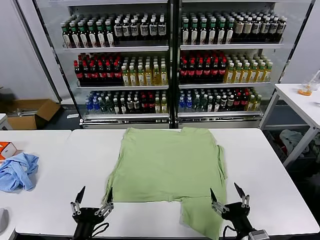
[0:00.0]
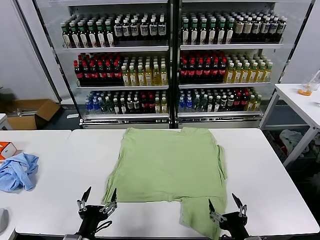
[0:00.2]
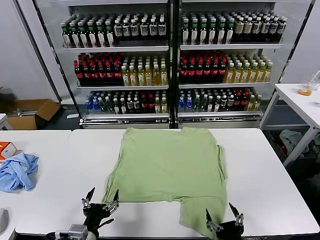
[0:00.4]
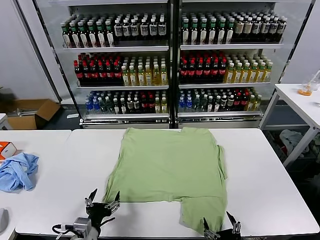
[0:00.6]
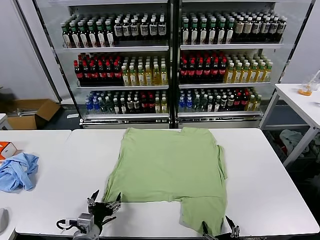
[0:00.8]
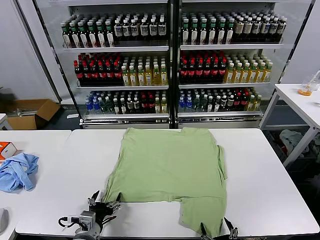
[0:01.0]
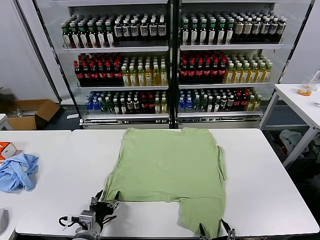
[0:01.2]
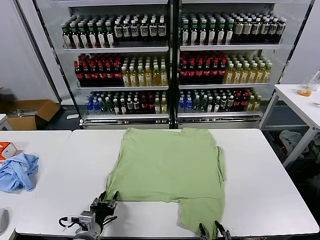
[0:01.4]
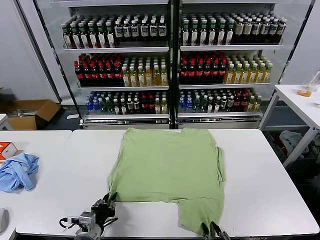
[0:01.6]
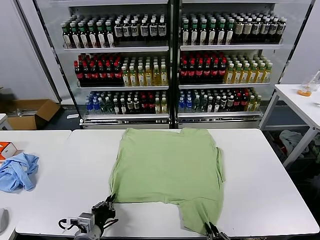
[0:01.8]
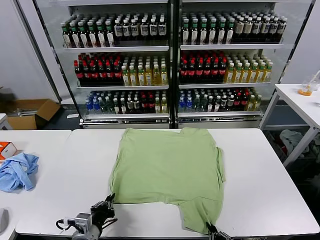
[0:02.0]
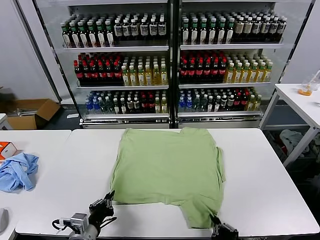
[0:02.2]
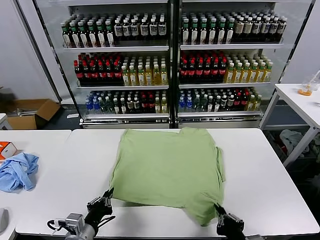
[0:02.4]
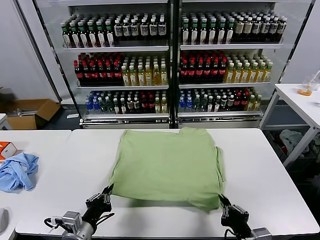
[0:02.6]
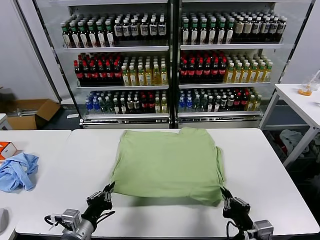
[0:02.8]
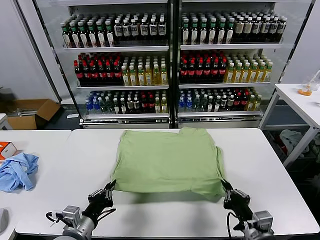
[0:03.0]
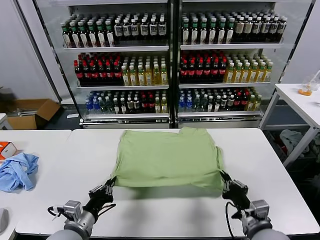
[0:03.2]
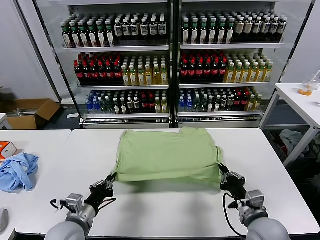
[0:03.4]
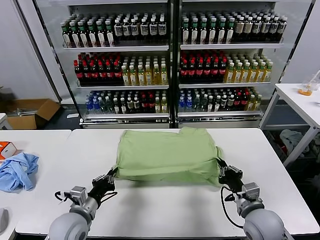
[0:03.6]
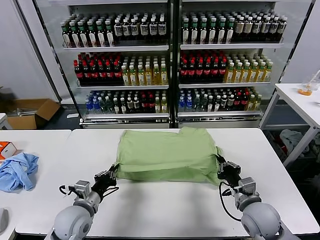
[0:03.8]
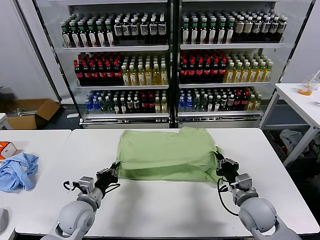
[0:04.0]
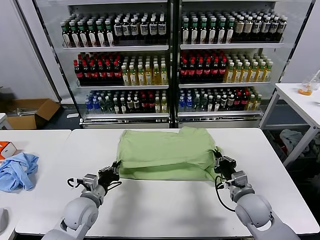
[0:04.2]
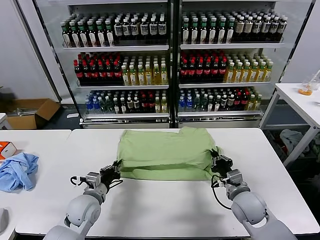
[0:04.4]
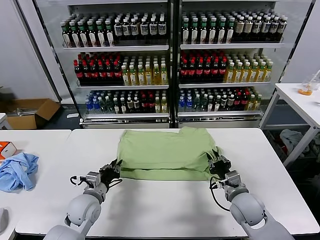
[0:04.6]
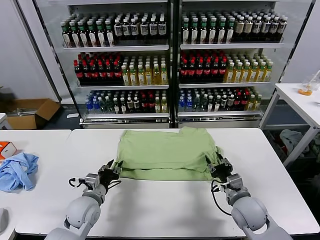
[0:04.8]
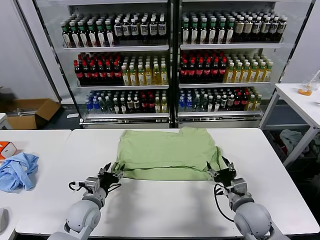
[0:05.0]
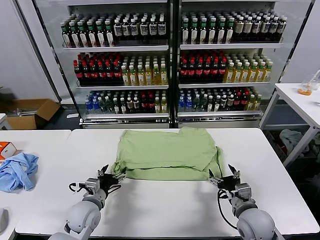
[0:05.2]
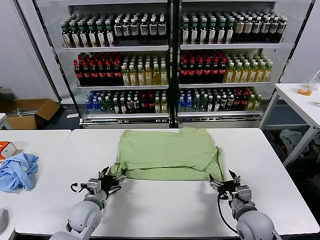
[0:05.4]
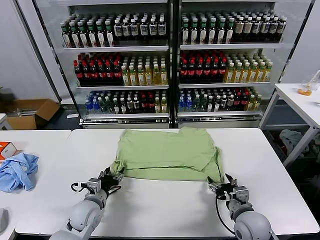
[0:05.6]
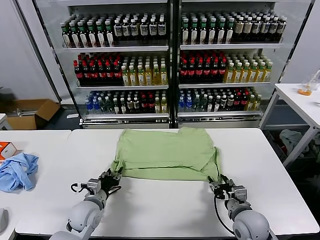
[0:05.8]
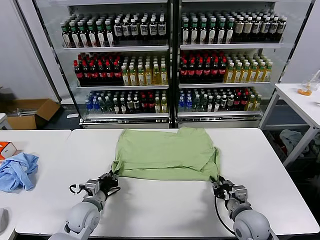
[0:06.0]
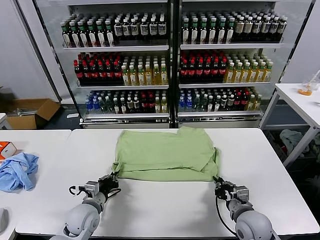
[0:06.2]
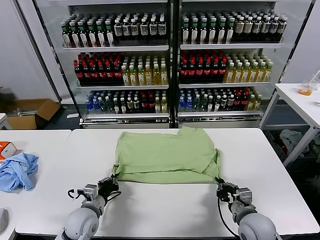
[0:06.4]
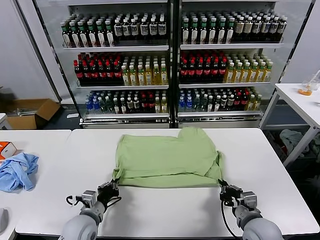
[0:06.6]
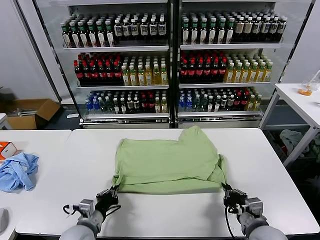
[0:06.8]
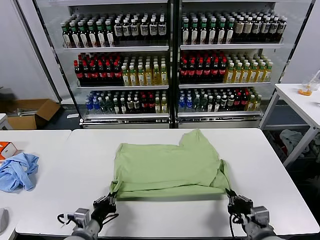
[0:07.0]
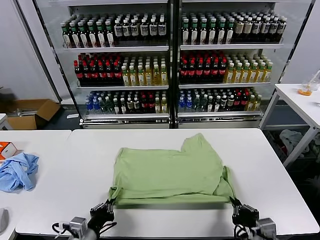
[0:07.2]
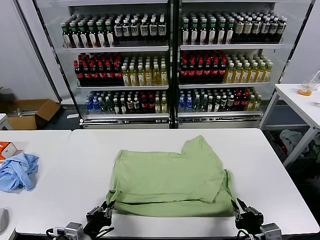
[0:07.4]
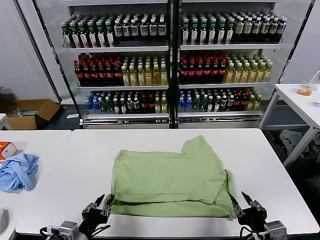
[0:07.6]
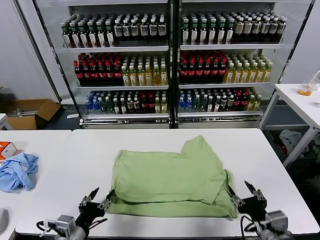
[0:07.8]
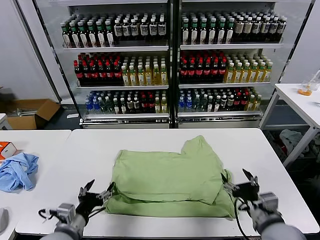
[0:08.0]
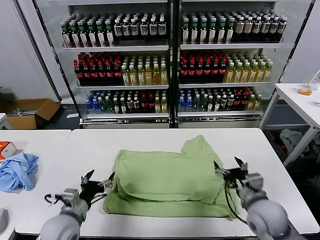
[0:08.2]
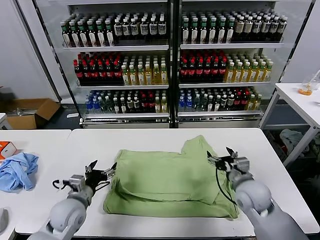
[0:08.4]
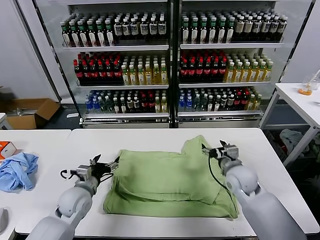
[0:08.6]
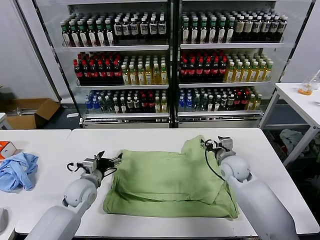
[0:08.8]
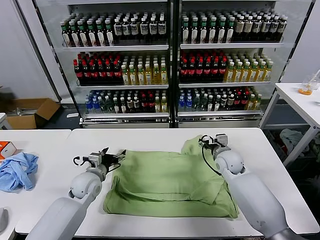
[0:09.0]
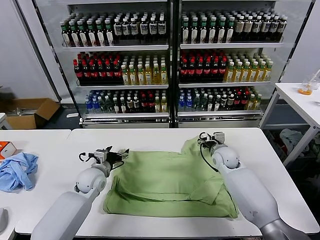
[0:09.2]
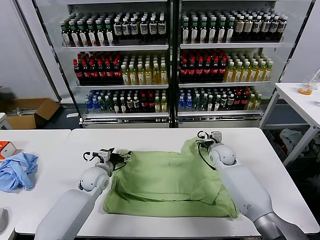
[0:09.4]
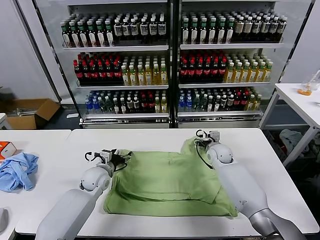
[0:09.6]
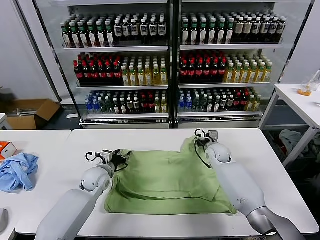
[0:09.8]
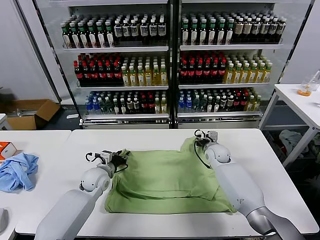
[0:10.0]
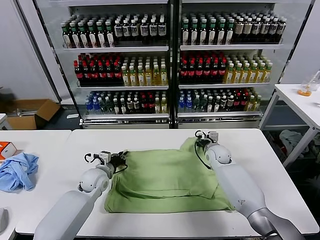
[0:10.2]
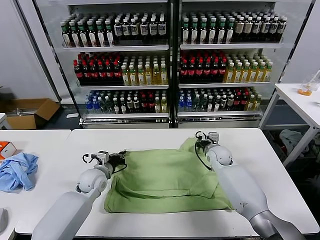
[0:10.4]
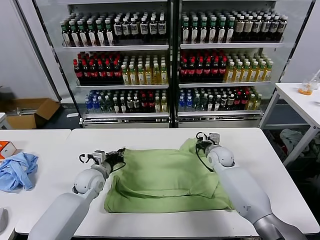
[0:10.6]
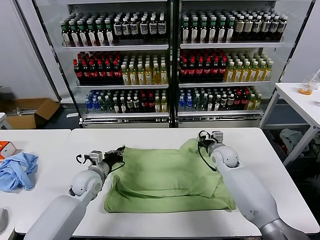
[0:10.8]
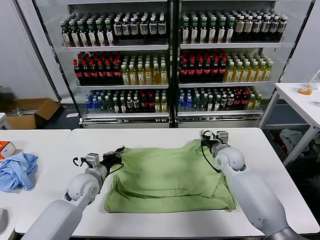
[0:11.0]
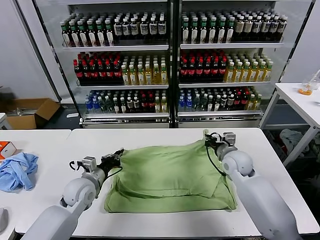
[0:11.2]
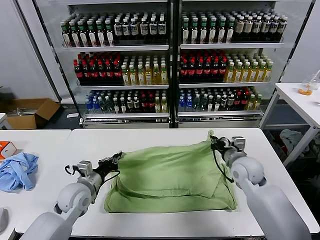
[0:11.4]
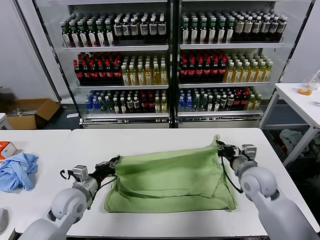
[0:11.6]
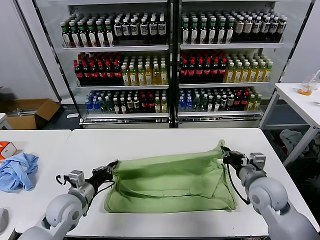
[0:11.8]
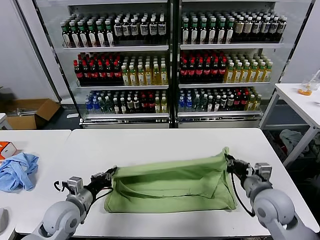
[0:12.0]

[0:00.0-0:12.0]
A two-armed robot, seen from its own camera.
Task of the whole recording: fold and organize the clothes.
Step, 0:00.0 to 0:02.0: use both grippers simultaneously to clamp the lower edge of the clothing fabric.
Step, 0:02.2 to 0:04.8: use both grippers to drag the lower edge of the fabric forward and fold it over the upper edge.
Step, 0:05.2 to 0:07.6: Drag the clothes downward with both gripper.
Step, 0:07.8 to 0:10.4: use both grippers simultaneously to clamp the upper edge of the clothing fabric.
0:01.6 to 0:03.0: The right gripper goes some 15 cm forward and to the right, while the left gripper moves upward, approximately 5 cm.
0:03.0 to 0:04.4: The grippers both shift forward by approximately 15 cm.
0:04.4 to 0:06.0: The right gripper moves backward, approximately 5 cm, and opens, then closes again. The left gripper opens and closes again.
0:06.0 to 0:07.6: Both grippers travel together backward and upward, some 15 cm.
0:07.6 to 0:09.0: The grippers both shift forward by roughly 30 cm. The right gripper opens. Meanwhile the left gripper opens.
0:09.0 to 0:10.4: The left gripper closes up. Meanwhile the right gripper shifts by about 5 cm, and closes up.
0:10.4 to 0:12.0: The left gripper shifts about 15 cm backward. Meanwhile the right gripper goes approximately 25 cm backward.

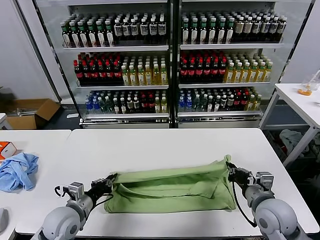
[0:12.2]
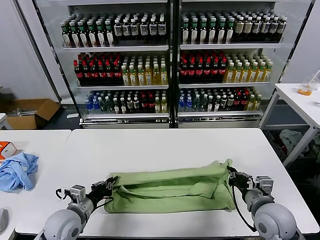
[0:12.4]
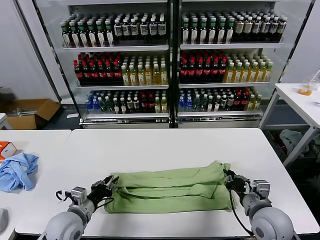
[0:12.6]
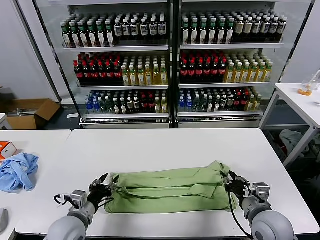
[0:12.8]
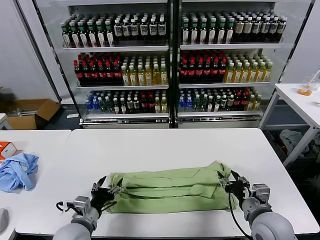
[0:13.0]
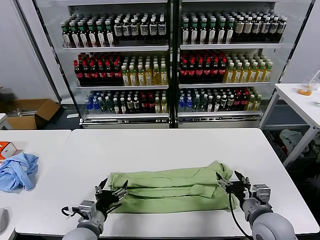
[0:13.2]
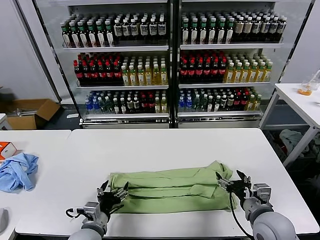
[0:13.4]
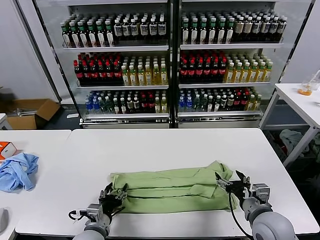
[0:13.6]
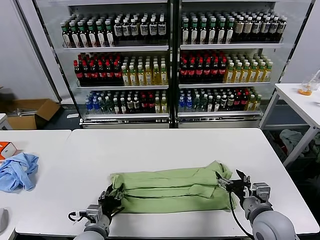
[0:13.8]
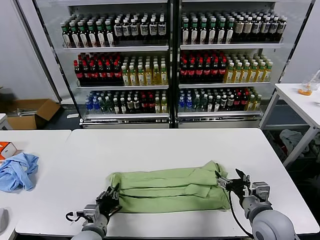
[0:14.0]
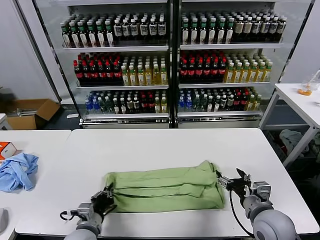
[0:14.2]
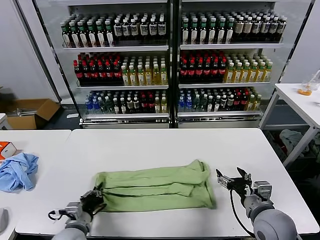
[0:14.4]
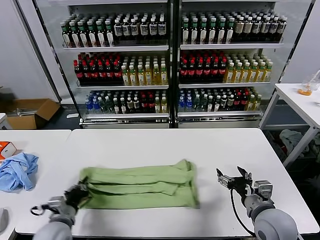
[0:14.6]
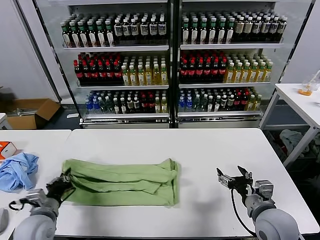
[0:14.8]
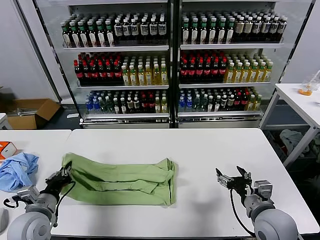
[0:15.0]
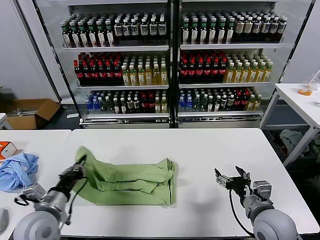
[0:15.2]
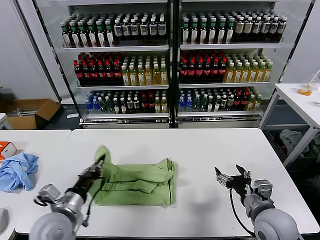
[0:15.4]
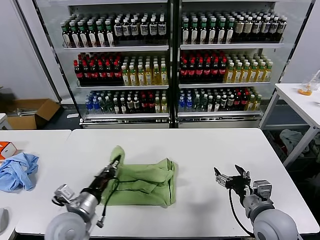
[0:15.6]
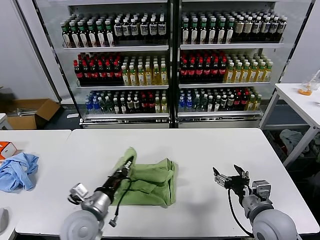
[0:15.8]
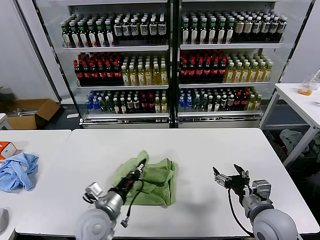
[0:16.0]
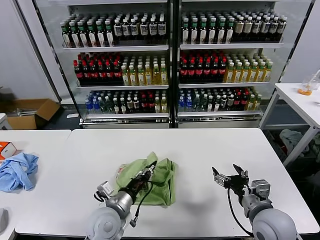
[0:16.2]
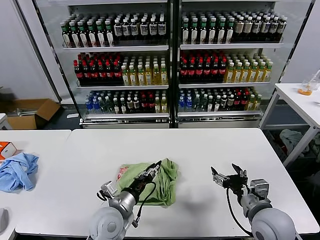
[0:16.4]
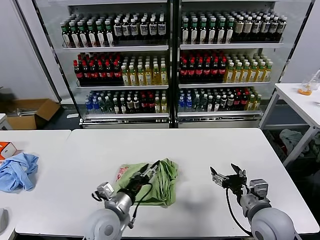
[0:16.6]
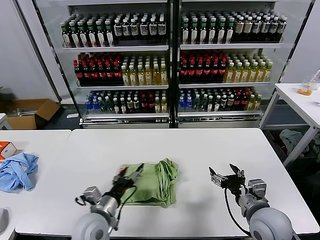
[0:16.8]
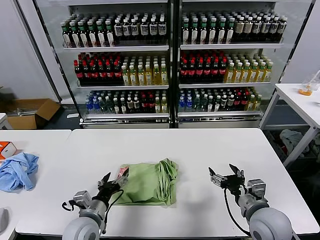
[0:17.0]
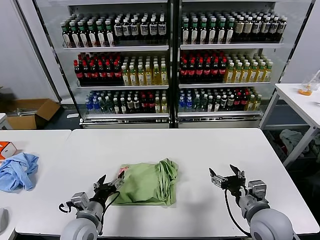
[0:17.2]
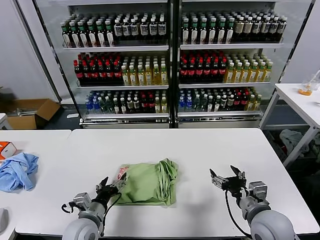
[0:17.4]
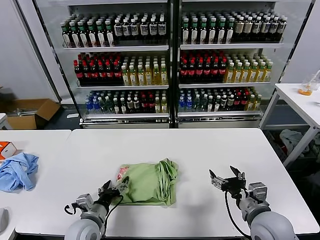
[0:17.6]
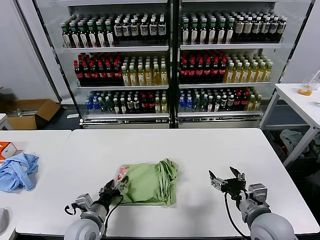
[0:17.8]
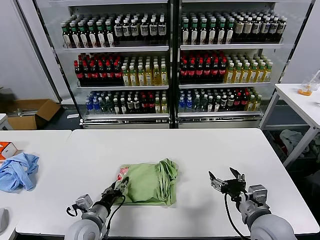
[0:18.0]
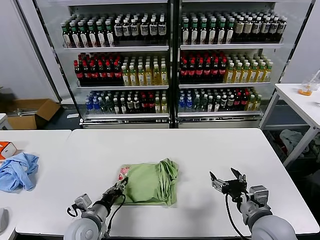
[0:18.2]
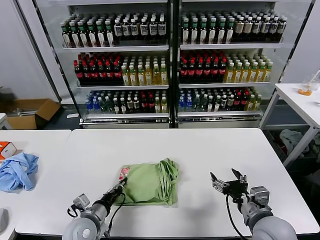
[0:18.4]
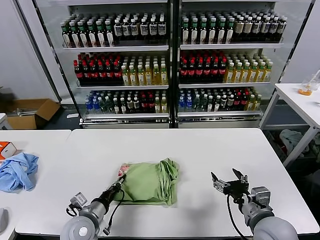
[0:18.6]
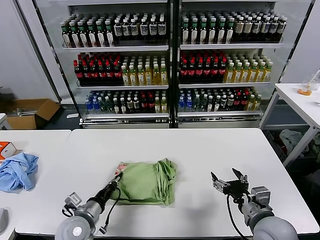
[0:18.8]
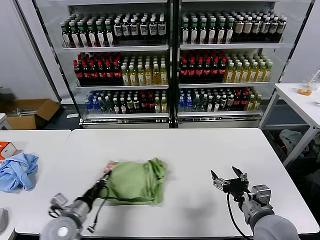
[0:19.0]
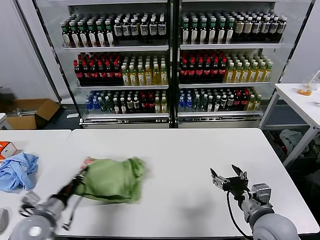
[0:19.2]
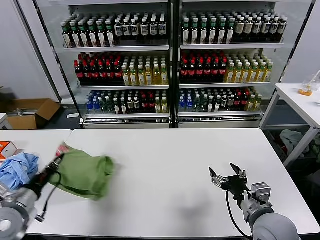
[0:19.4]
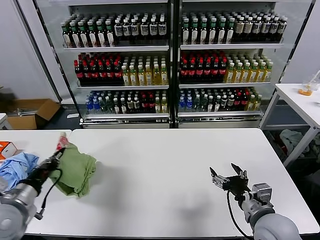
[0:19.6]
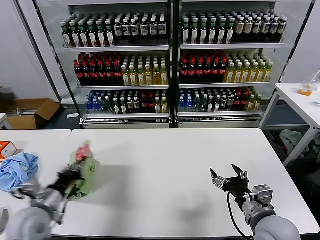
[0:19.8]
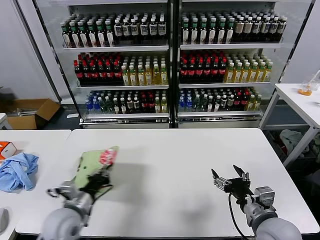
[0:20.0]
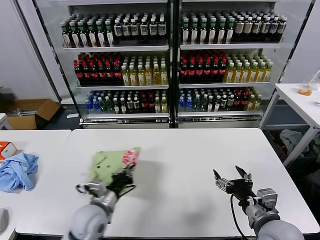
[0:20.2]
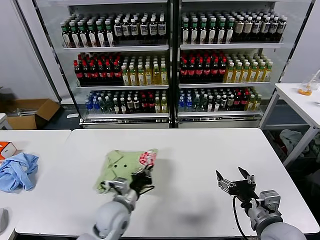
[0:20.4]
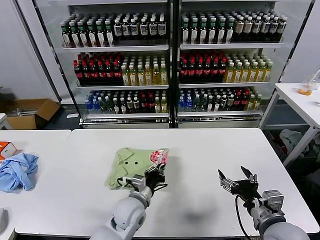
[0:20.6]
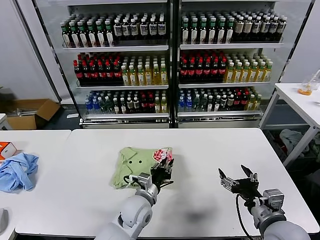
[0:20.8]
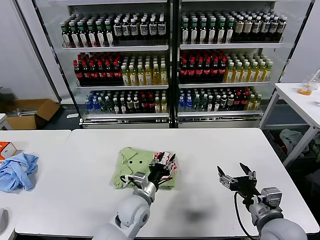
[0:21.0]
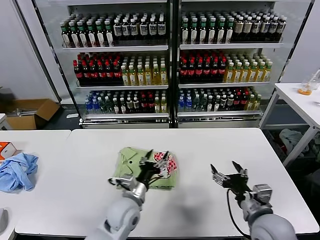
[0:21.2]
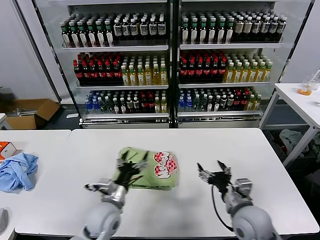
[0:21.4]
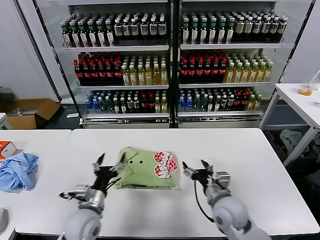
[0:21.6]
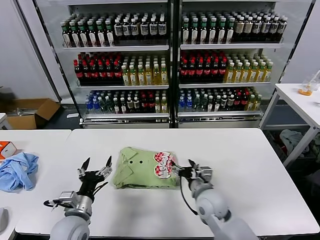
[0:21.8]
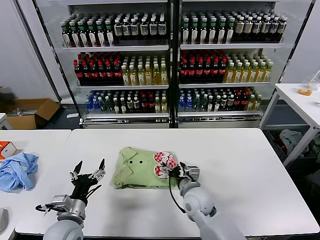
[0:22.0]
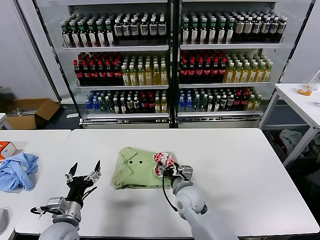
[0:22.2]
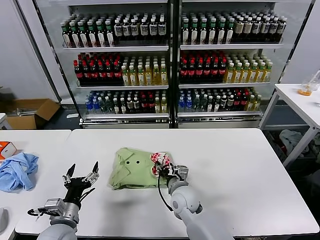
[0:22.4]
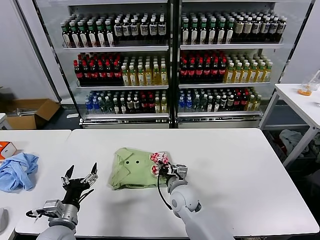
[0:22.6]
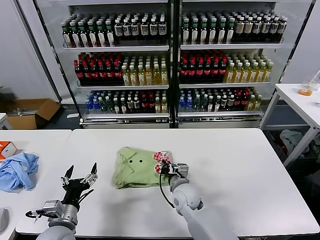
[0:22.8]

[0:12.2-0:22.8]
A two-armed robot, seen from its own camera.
Task of the whole recording: fold and organize the clothes.
Step, 0:13.4 to 0:14.0: use the left gripper to clamp the left edge of the fabric.
Step, 0:14.4 to 0:16.6: use the left gripper to drag the left edge of the fabric to the left and folds it over the right edge.
Step, 0:16.8 to 0:20.8: Flip the folded clothes over with left gripper.
0:12.2 to 0:13.8: The left gripper moves to the right, downward and backward, approximately 10 cm, and opens. Meanwhile the right gripper opens its fingers.
0:13.8 to 0:15.2: The left gripper travels to the left and upward by approximately 15 cm, and closes up.
0:15.2 to 0:16.8: The left gripper shifts approximately 15 cm to the right, and opens.
0:16.8 to 0:18.2: The left gripper ends up some 5 cm from where it was, and closes its fingers.
0:18.2 to 0:19.8: The left gripper goes some 15 cm to the left and upward, and closes up.
0:19.8 to 0:21.2: The left gripper heads to the right, covering some 25 cm, and opens its fingers.
0:21.2 to 0:22.8: The left gripper travels to the left and backward by roughly 20 cm. Meanwhile the right gripper moves to the left, forward and downward, about 25 cm, and closes its fingers.
